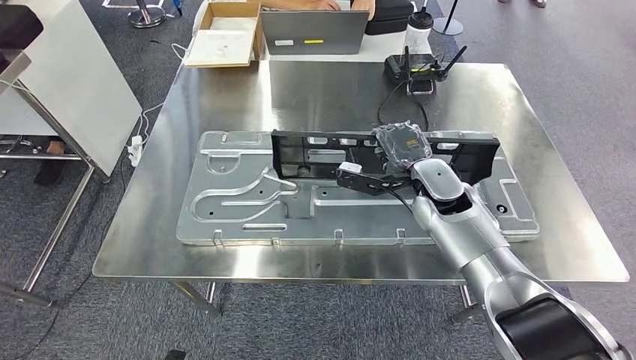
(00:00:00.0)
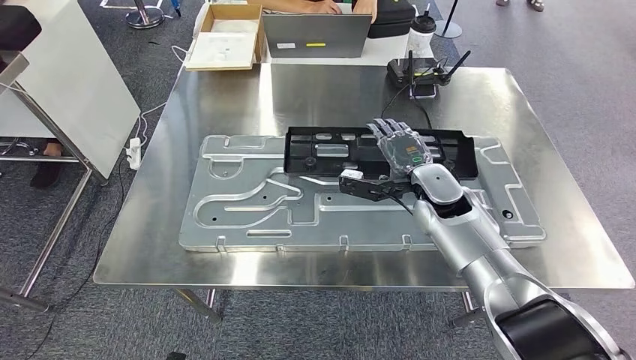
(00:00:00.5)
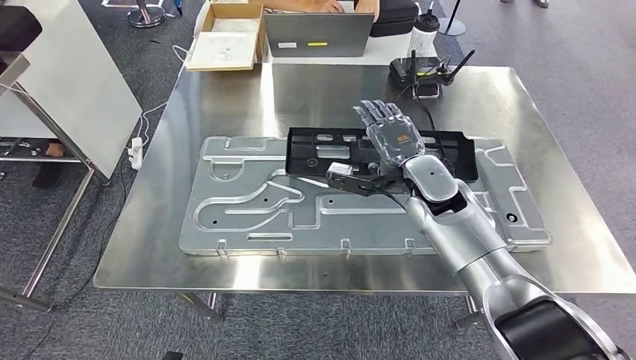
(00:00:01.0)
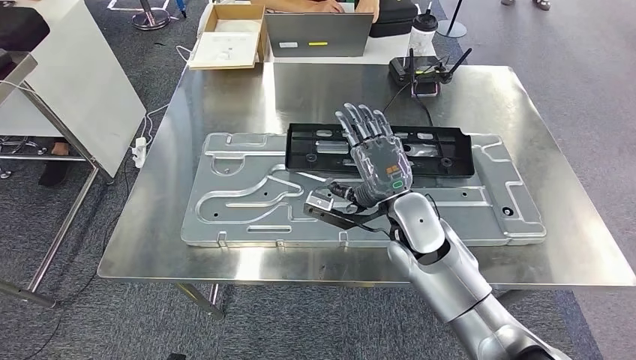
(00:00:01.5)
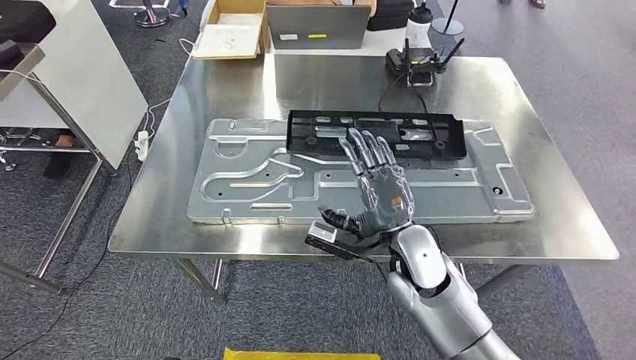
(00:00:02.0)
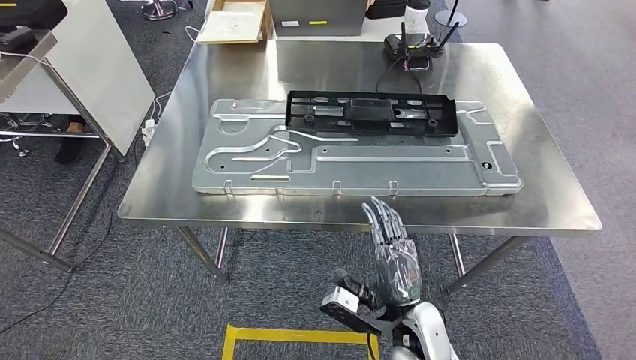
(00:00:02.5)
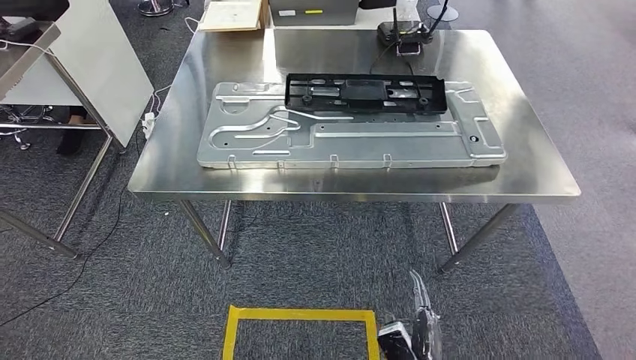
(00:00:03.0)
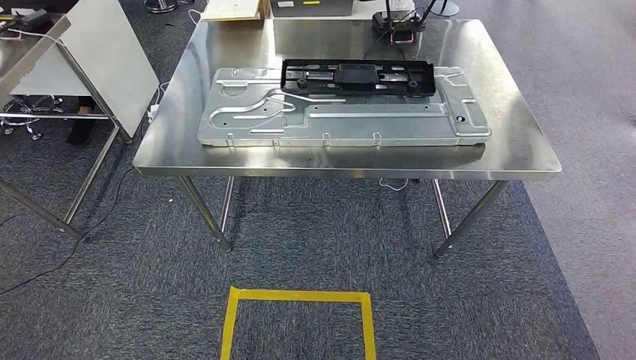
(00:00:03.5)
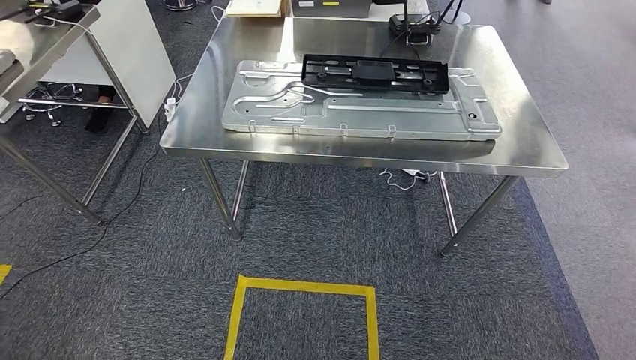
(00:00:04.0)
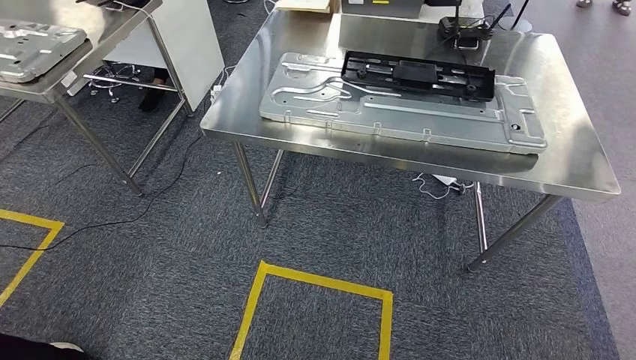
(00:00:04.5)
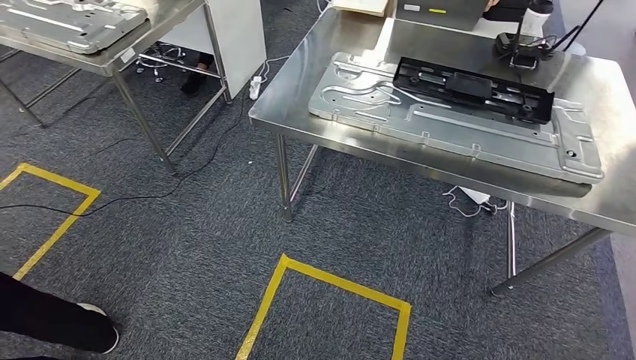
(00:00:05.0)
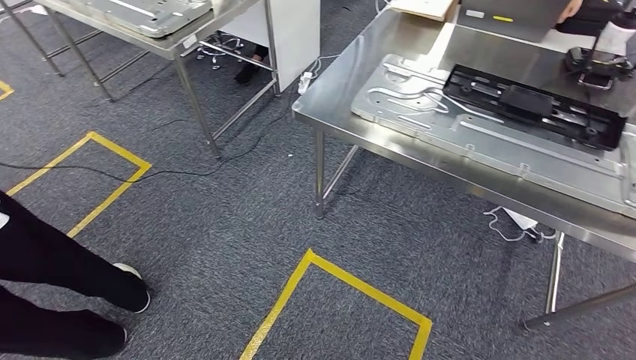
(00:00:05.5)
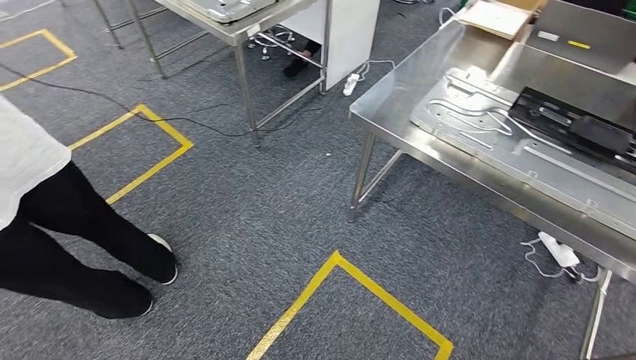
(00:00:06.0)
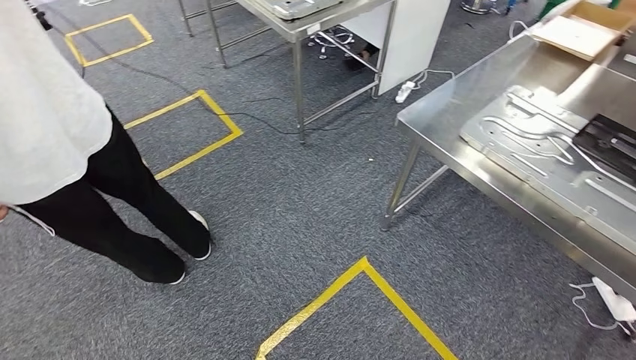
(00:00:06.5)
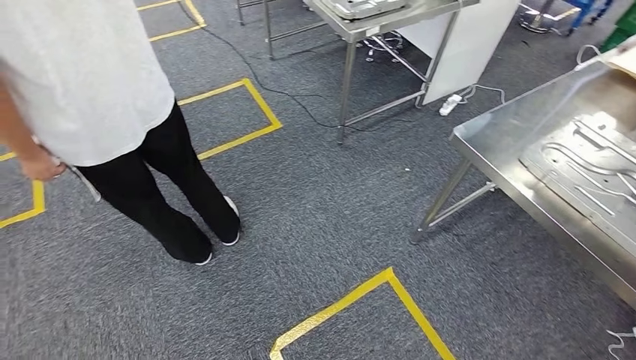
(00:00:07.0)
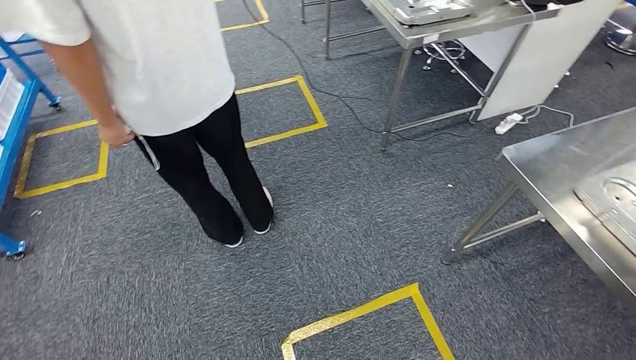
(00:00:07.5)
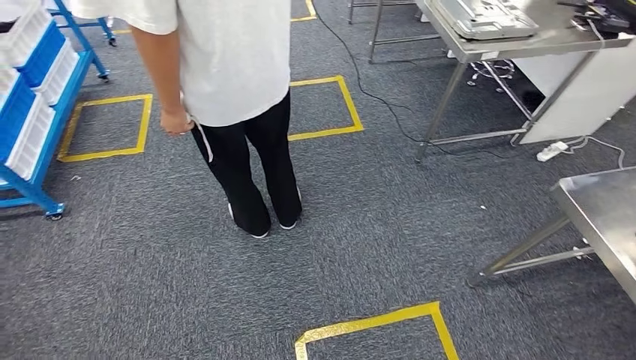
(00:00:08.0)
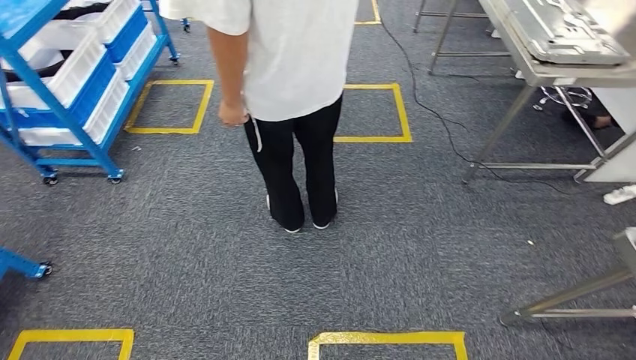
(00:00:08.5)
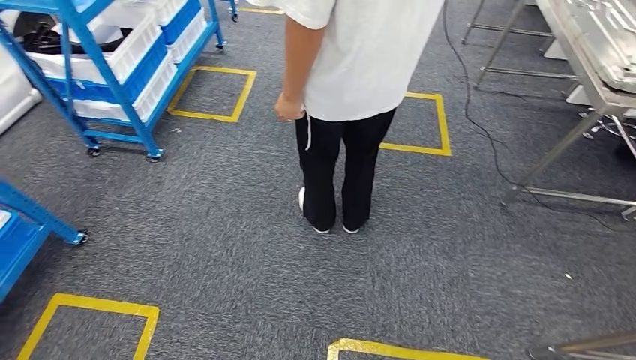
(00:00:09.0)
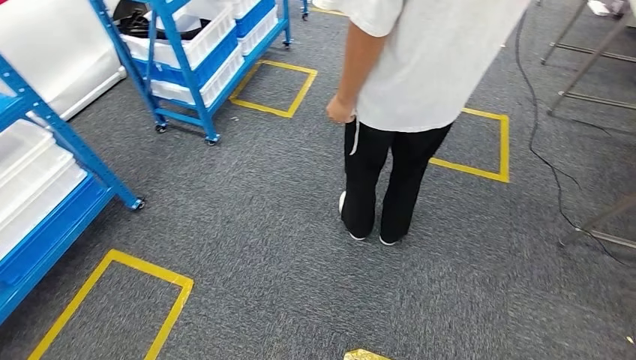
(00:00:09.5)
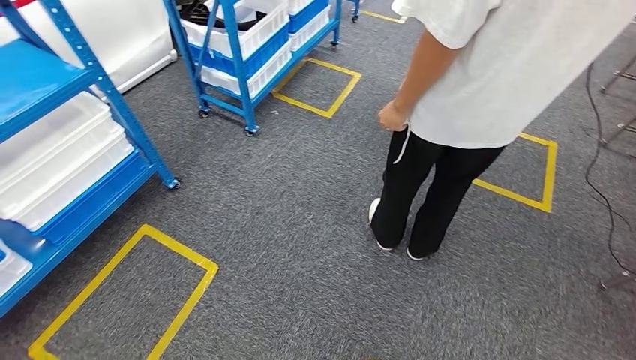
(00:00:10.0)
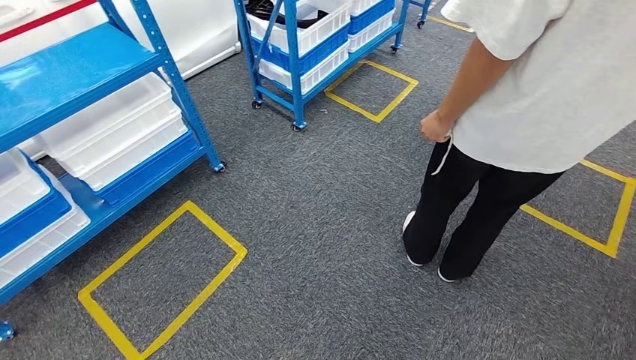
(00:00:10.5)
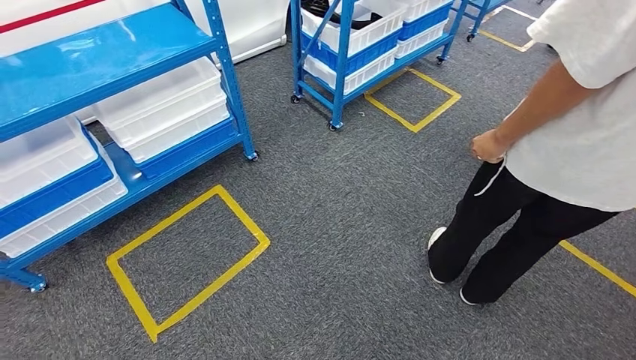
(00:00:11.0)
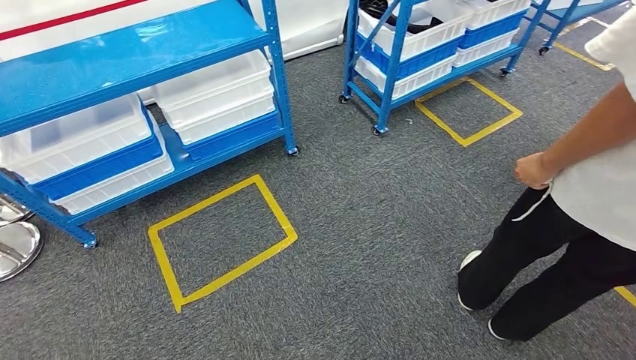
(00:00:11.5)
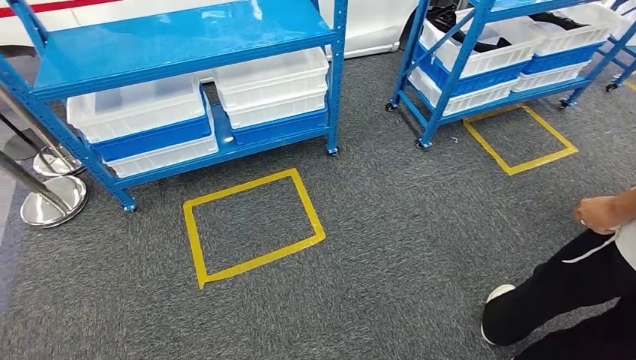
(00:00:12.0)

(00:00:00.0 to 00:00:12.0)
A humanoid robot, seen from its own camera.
Step, 00:00:00.0 - 00:00:04.5: Insert the large material into the corresponding slot on the workbench.

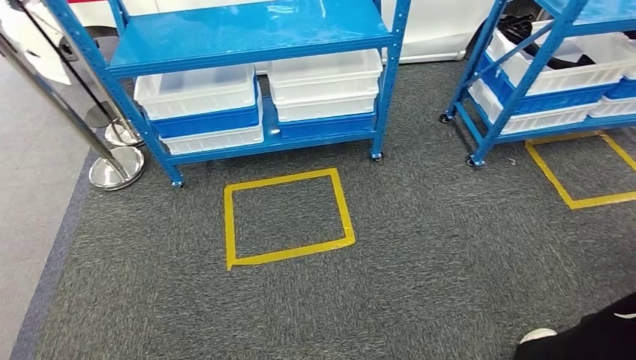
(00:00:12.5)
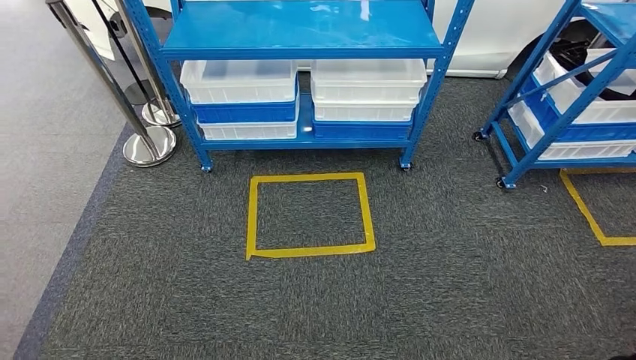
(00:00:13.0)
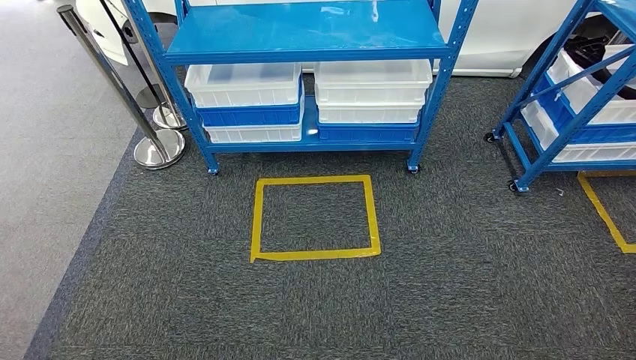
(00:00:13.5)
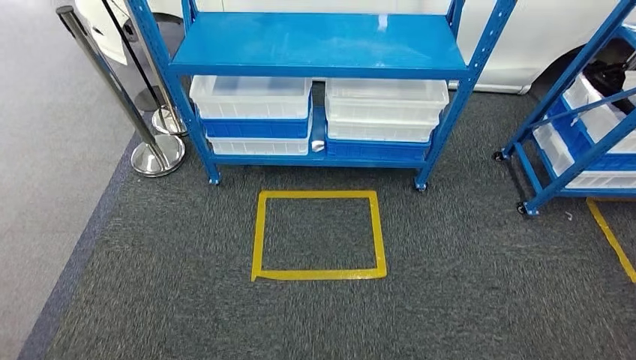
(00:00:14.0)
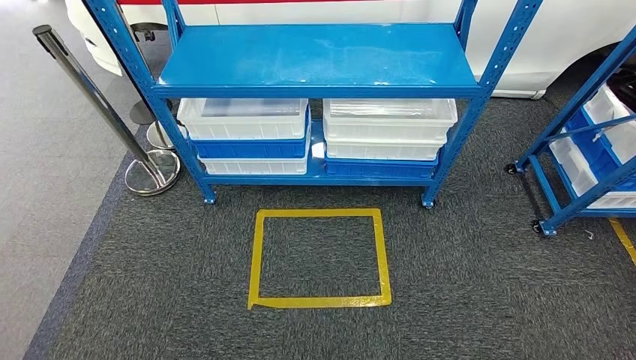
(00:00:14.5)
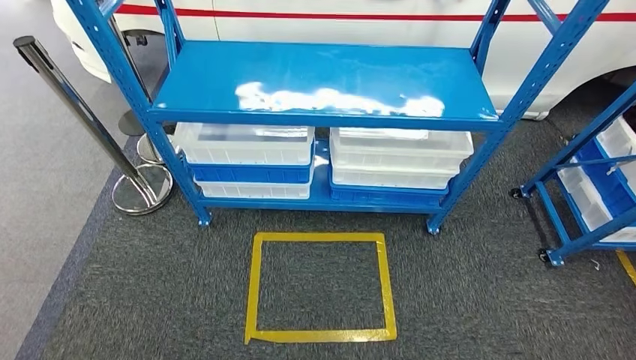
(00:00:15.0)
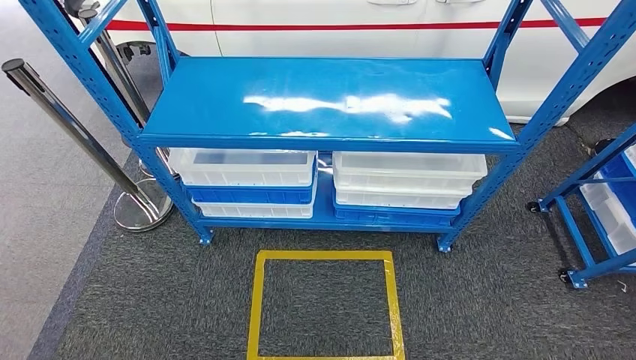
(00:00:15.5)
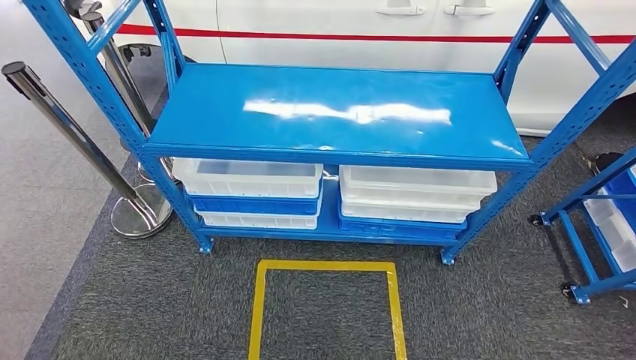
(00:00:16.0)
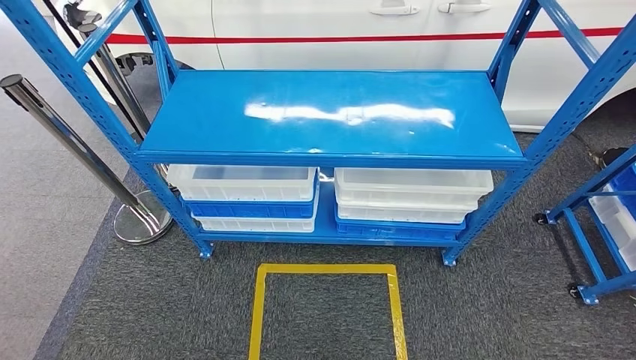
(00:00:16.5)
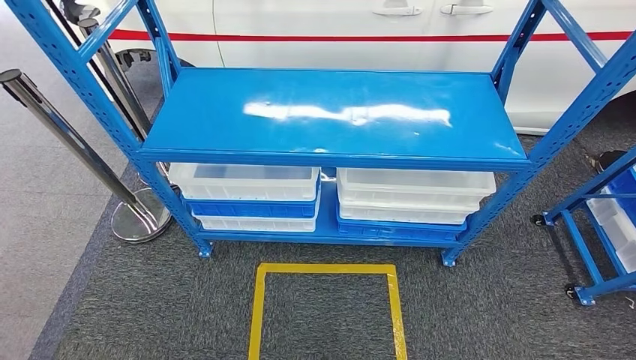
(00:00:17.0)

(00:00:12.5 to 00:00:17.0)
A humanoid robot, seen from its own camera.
Step, 00:00:12.5 - 00:00:17.0: Move to the initial position of the shelf.
